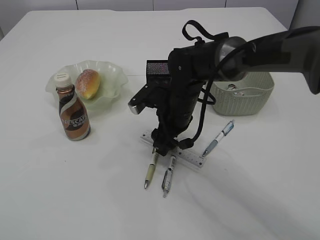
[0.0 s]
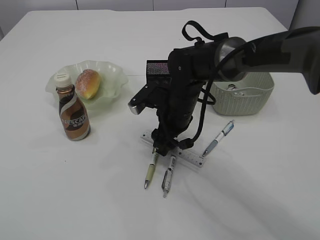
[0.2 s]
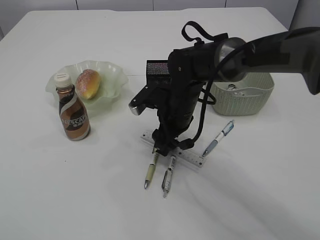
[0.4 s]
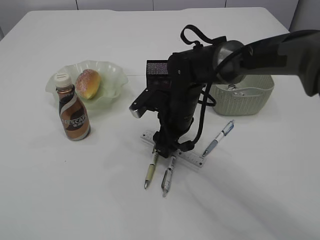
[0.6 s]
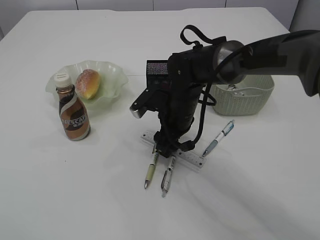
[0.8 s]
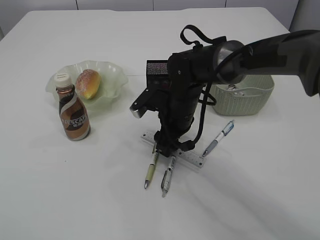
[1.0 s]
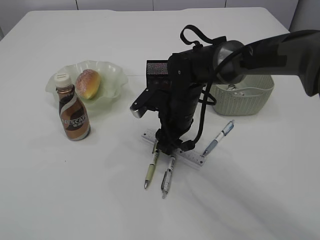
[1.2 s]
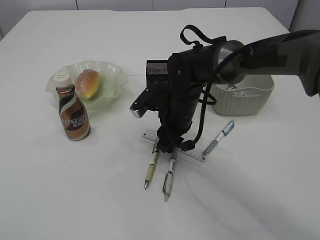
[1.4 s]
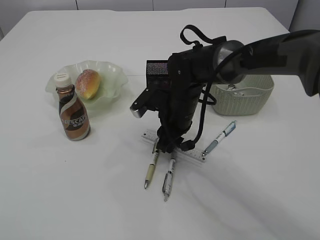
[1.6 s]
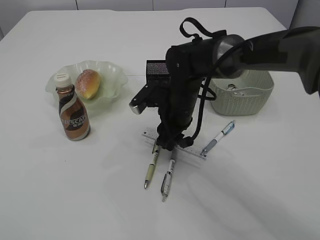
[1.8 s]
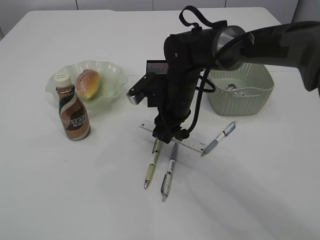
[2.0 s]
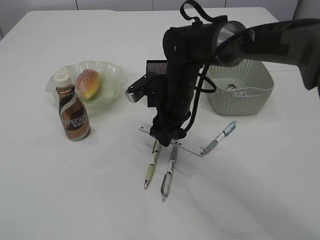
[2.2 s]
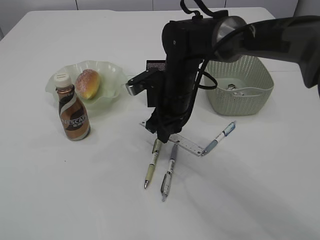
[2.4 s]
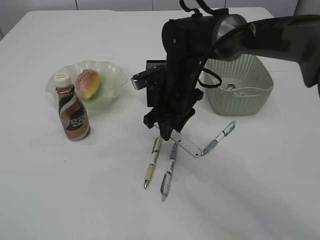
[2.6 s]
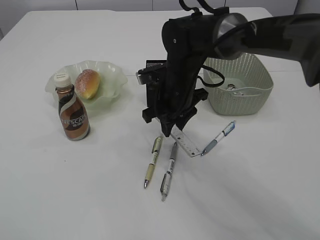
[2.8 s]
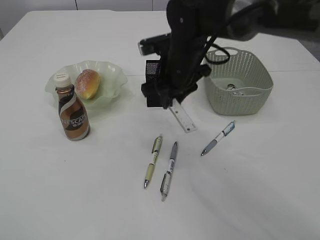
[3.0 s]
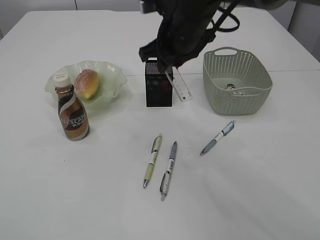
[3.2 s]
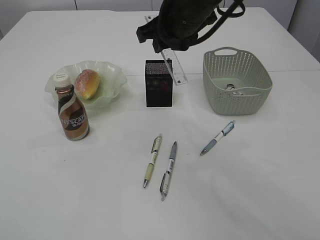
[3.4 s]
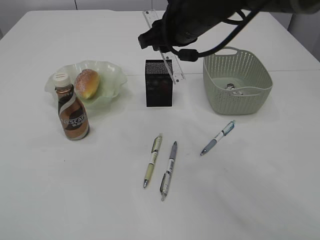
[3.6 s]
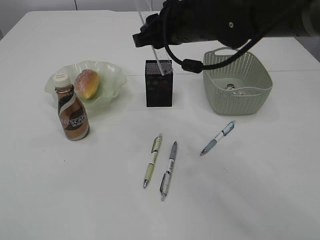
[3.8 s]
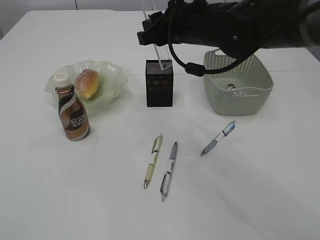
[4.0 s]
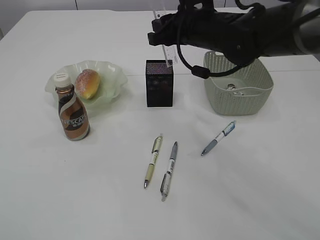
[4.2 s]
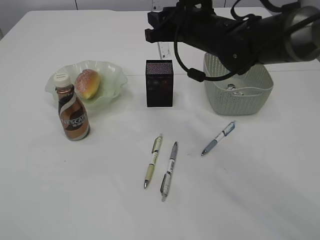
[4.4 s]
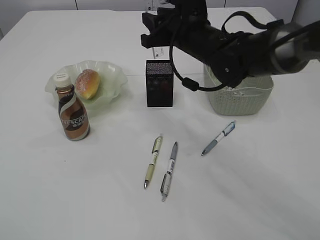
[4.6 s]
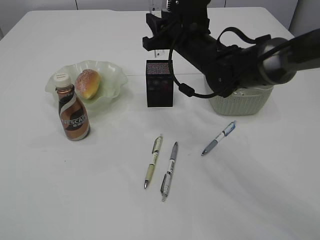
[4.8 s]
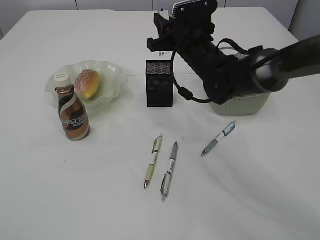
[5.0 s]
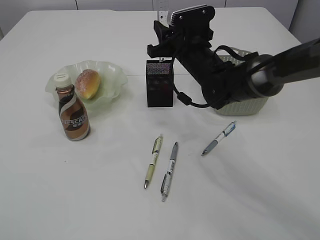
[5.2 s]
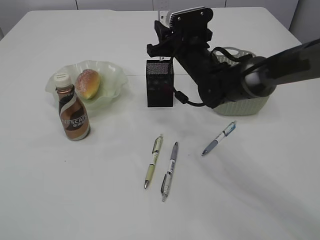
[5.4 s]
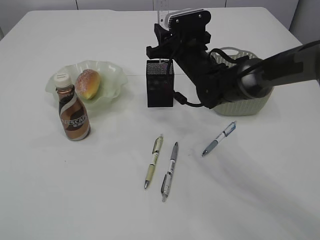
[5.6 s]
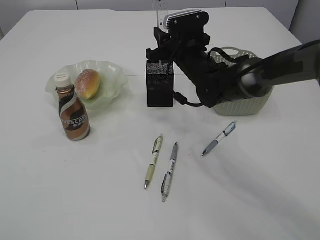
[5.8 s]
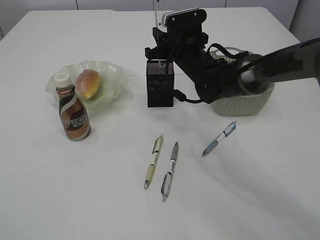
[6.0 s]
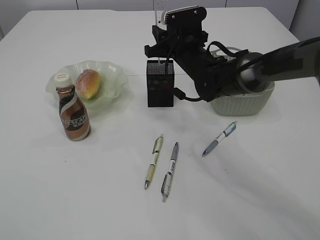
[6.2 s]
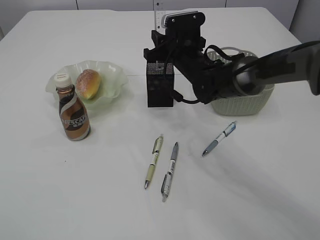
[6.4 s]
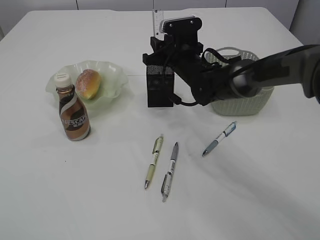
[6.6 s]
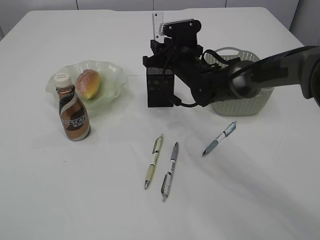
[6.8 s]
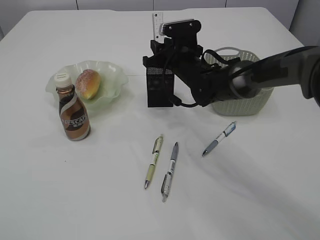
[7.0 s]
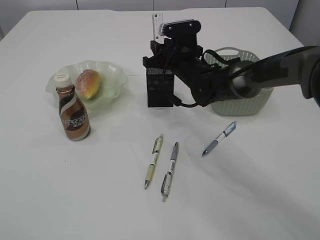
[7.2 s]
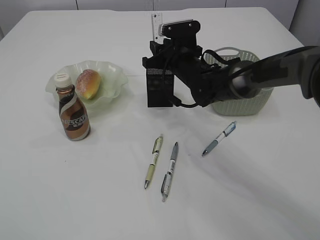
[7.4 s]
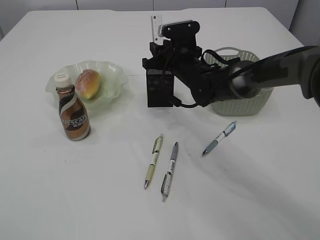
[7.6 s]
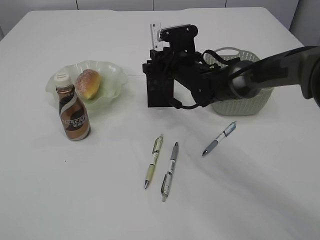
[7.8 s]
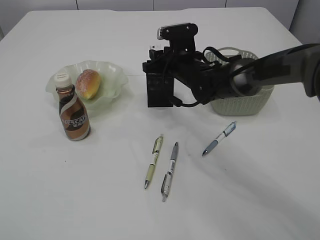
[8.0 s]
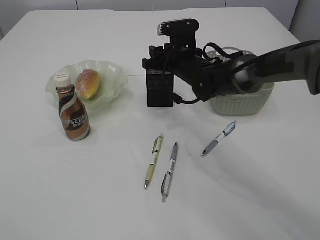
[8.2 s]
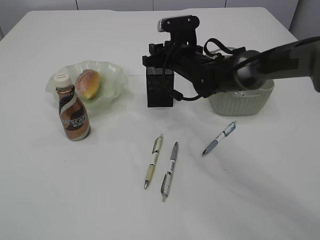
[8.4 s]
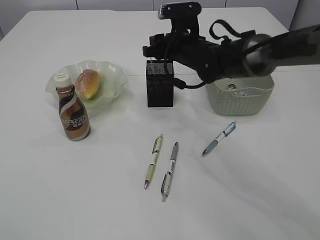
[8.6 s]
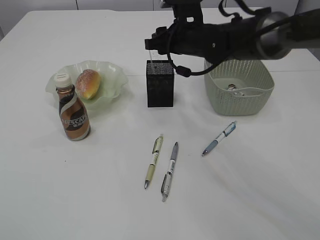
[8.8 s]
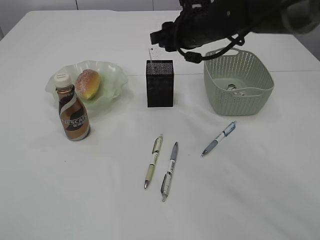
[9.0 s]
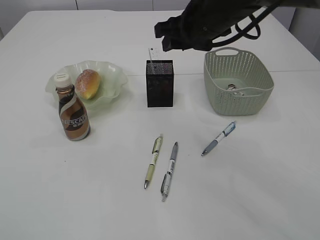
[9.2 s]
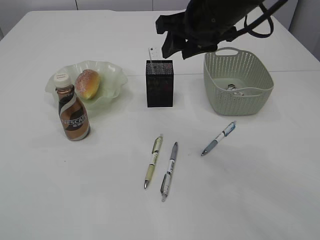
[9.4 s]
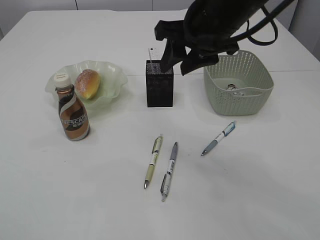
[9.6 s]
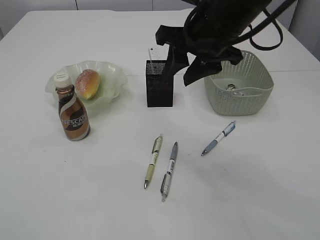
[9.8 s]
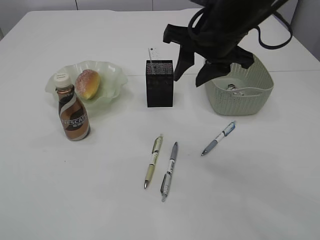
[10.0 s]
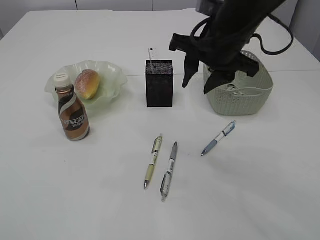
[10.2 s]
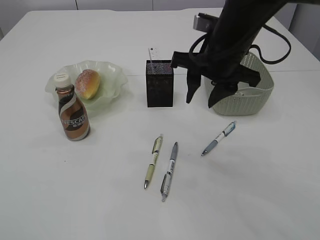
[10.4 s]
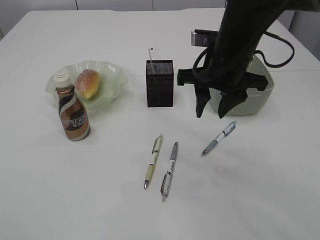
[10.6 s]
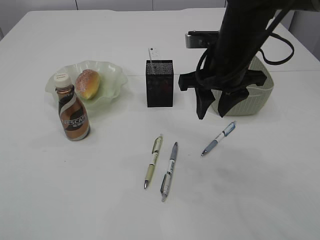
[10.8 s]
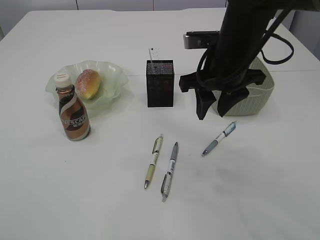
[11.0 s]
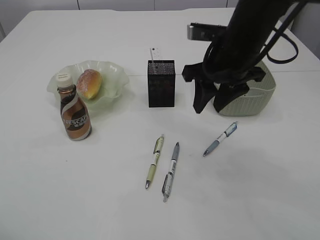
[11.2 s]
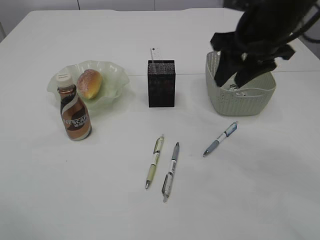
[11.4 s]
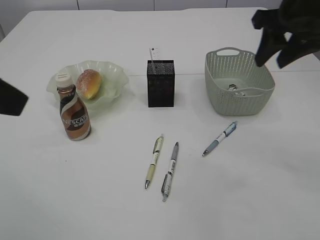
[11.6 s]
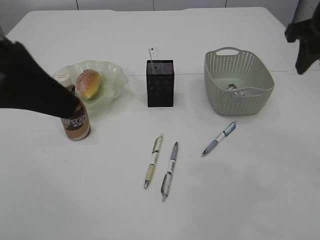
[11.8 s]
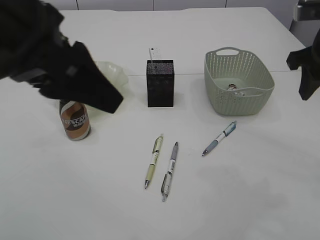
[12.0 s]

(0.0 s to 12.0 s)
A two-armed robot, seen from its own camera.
Step, 0.0 s - 3.0 s: pick up the ruler.
Step, 3.2 s - 8.8 s: Place the ruler into the pen holder.
0.0 s - 1.6 s: The right gripper closes.
1.6 s - 3.0 s: The right gripper shifts about 10 cm upward.
3.0 s - 4.4 s: The right gripper heads upward, covering some 5 cm.
4.4 s - 6.0 s: The right gripper is displaced downward by roughly 10 cm.
6.0 s - 7.6 s: The grippers stay close to where they were, moving slightly.
7.6 s - 9.0 s: The right gripper is displaced upward by about 10 cm.
9.0 s - 10.4 s: The right gripper goes approximately 5 cm backward.
10.4 s - 12.0 s: The right gripper moves to the right, some 15 cm. The left gripper heads to the right and forward, covering roughly 20 cm.

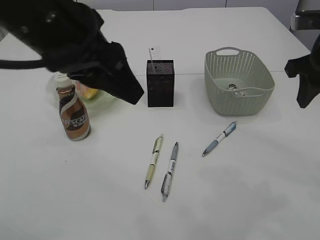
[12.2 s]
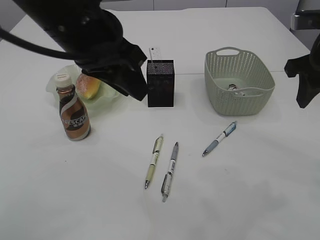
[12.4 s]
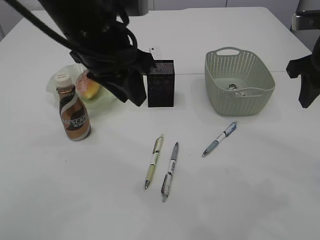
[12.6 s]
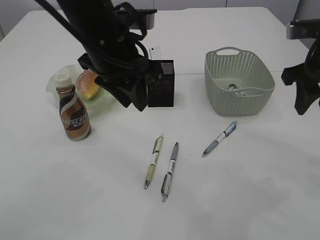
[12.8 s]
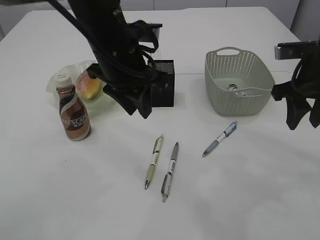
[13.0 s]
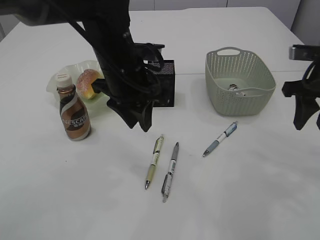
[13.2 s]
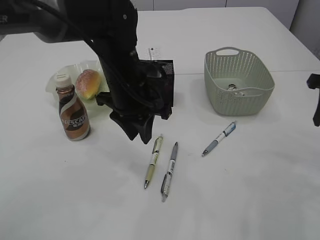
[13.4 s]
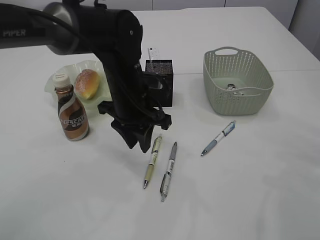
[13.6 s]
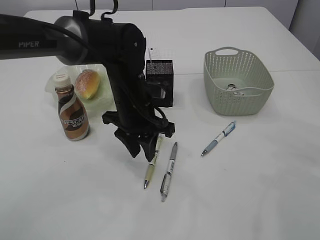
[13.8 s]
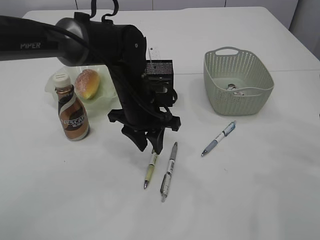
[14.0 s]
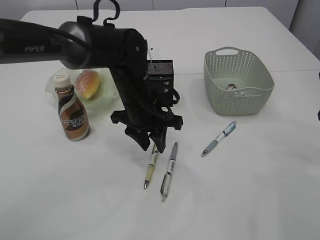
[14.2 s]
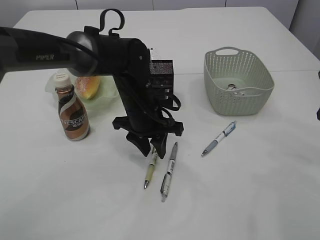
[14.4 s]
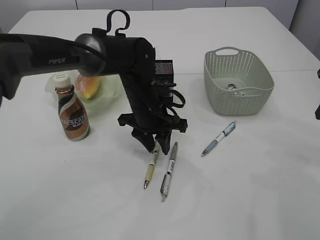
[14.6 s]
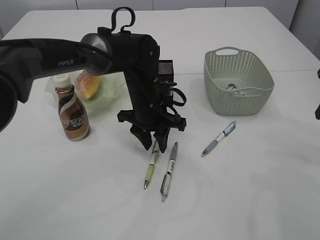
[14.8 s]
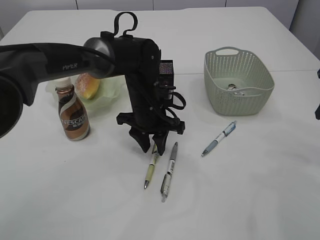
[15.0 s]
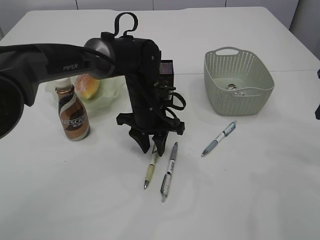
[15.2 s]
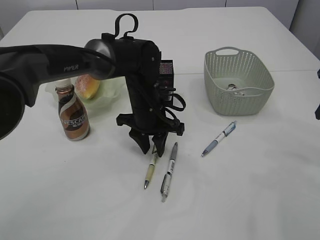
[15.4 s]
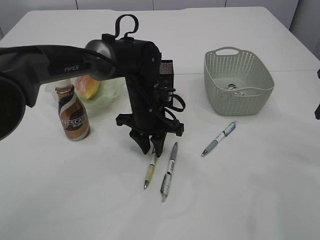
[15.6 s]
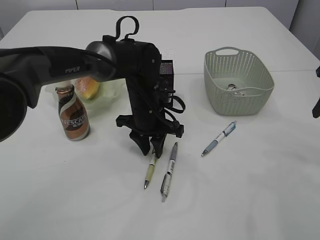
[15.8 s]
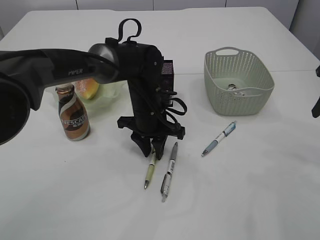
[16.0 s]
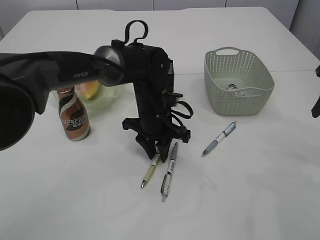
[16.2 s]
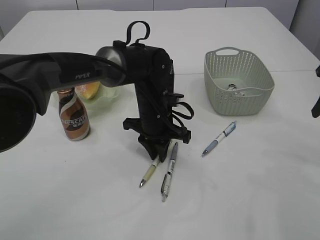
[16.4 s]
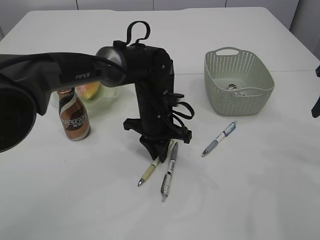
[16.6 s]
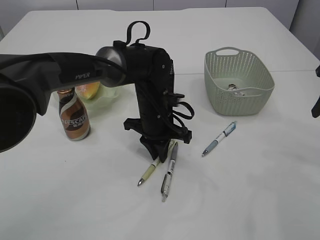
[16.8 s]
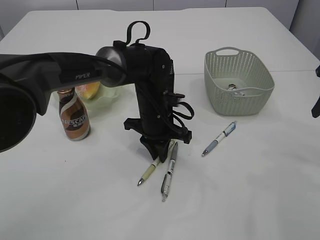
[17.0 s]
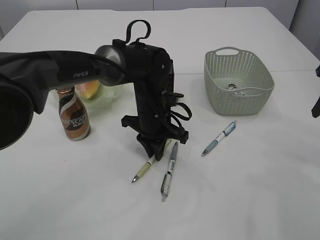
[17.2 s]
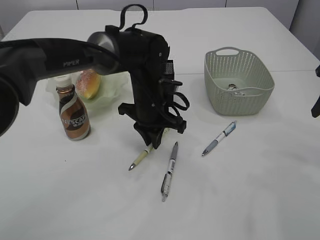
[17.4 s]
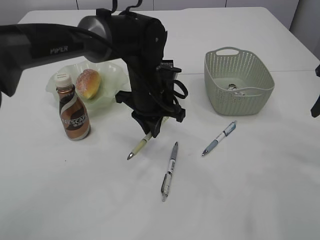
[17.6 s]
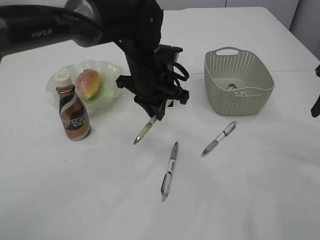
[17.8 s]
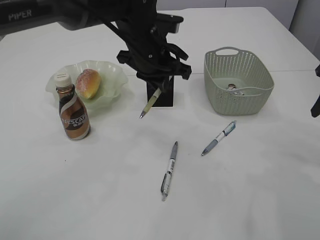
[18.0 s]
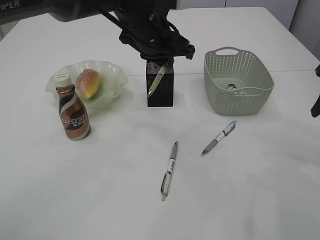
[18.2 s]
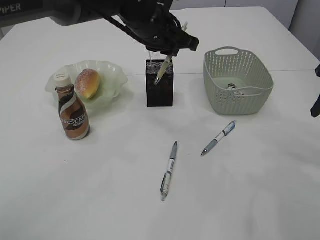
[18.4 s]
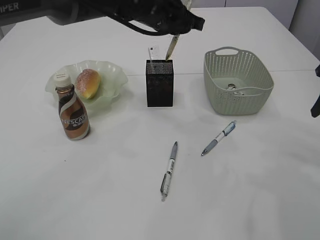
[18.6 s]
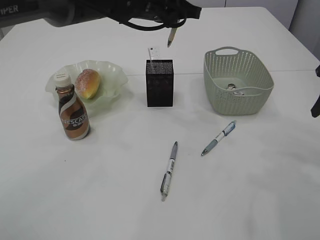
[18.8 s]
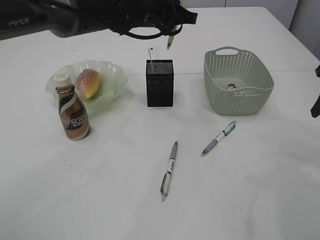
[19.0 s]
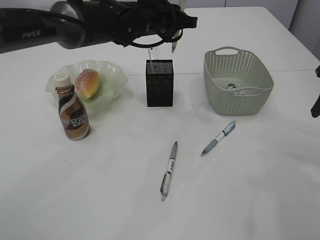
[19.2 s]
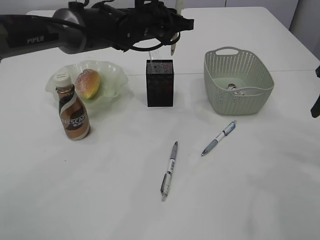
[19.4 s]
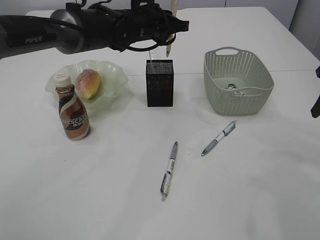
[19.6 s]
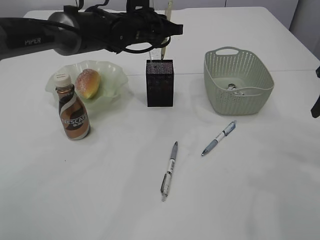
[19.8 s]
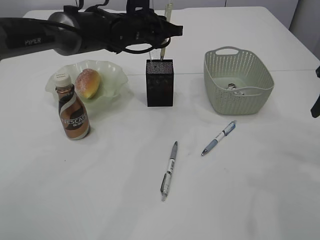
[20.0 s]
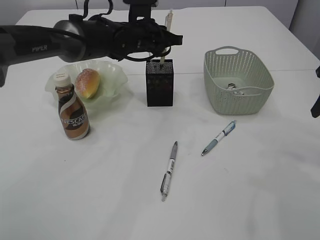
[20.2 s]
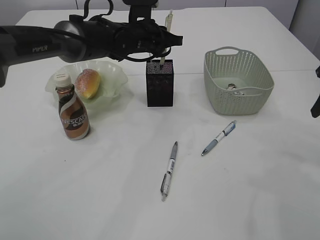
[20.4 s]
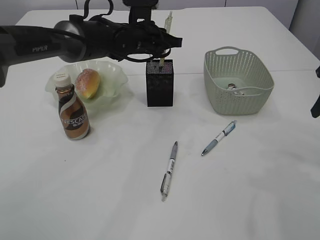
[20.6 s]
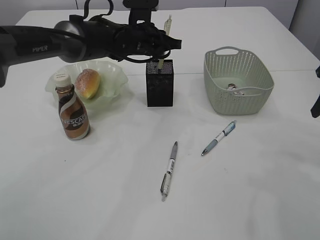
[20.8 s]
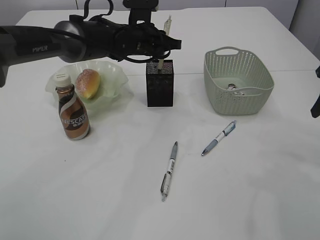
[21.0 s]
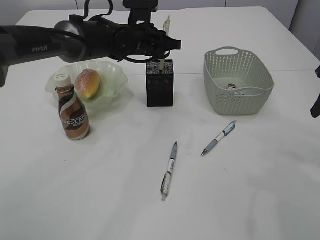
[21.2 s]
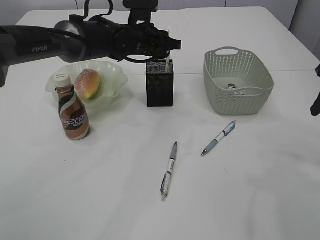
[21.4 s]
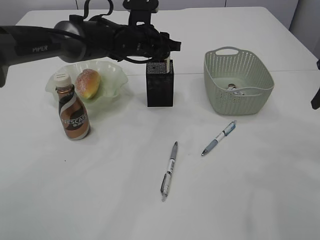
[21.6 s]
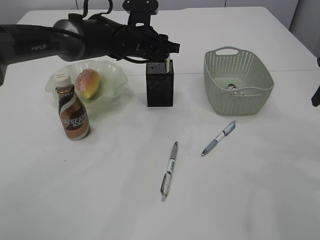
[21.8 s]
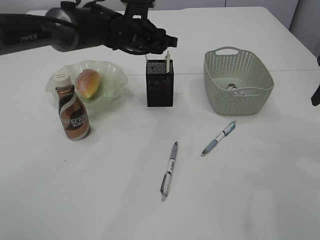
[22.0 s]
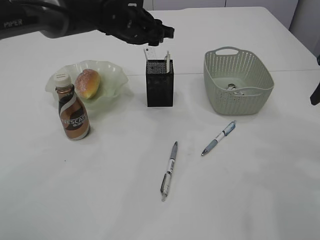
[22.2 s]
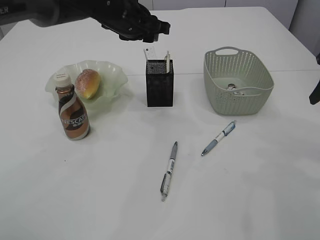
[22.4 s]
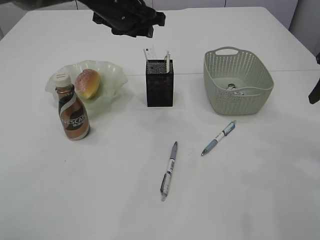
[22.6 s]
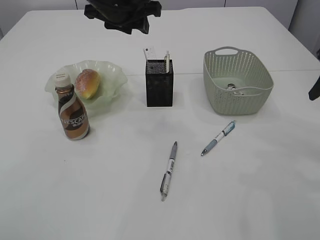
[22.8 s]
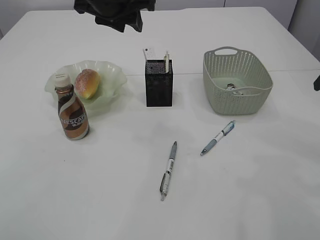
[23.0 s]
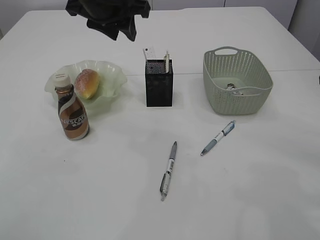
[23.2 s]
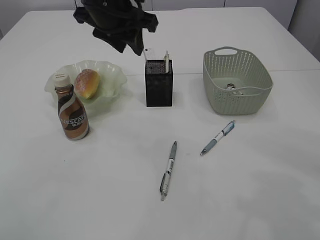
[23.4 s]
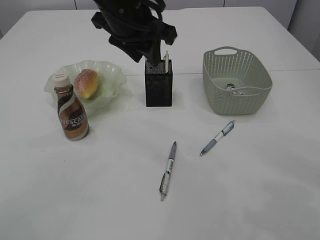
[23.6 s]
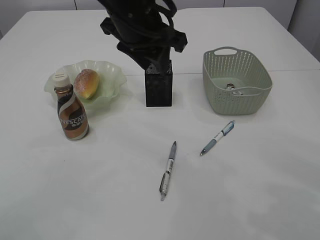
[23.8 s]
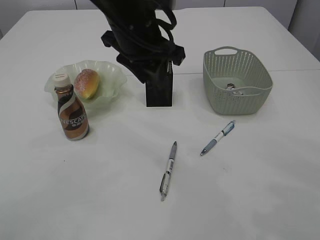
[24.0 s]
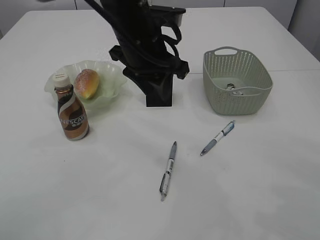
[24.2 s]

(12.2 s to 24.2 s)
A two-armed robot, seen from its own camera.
Step, 12.2 s - 17.8 s: Pick up the pen with left arm.
Step, 18.0 s - 23.4 s: Place the pen into the pen holder.
12.2 s - 13.8 s: The right gripper goes roughly 10 cm to the right and downward, while the left gripper is displaced downward and forward by approximately 20 cm.
13.8 s - 15.2 s: The left gripper ends up roughly 5 cm from where it was.
15.2 s - 16.6 s: The left gripper closes up.
16.6 s - 18.2 s: The left gripper heads upward, covering some 15 cm.
18.2 s - 19.8 s: The left gripper shifts some 10 cm forward.
19.8 s - 21.2 s: The grippers move only a little.
21.2 s - 22.6 s: The left gripper heads upward, covering roughly 10 cm.
22.6 s - 24.2 s: Both grippers travel together backward, approximately 10 cm.
